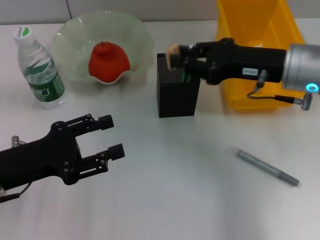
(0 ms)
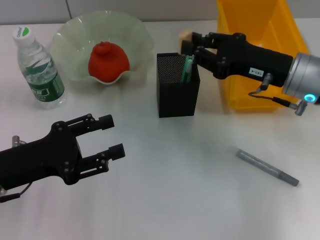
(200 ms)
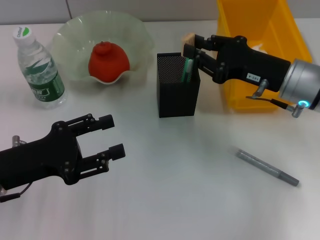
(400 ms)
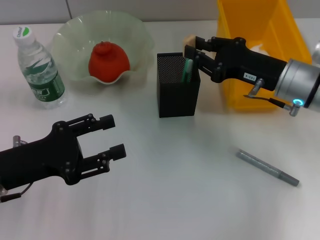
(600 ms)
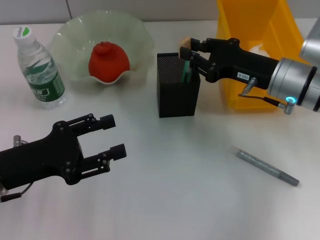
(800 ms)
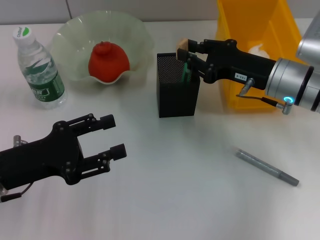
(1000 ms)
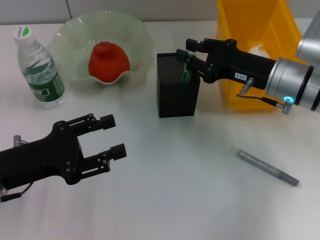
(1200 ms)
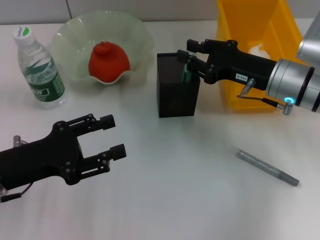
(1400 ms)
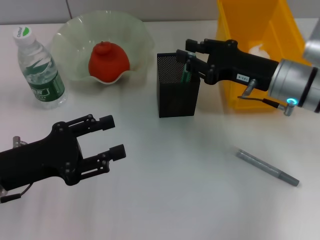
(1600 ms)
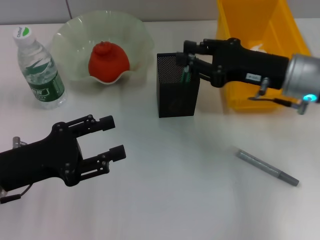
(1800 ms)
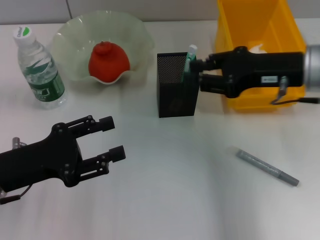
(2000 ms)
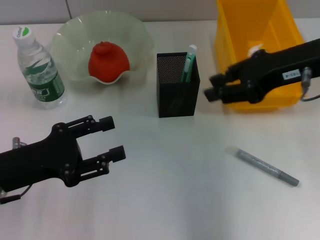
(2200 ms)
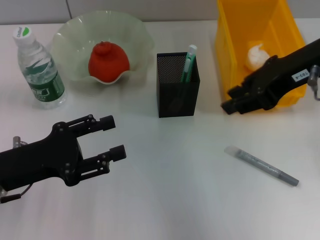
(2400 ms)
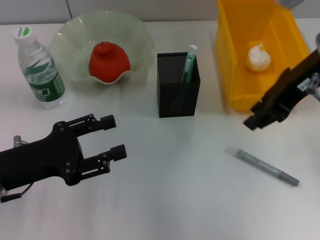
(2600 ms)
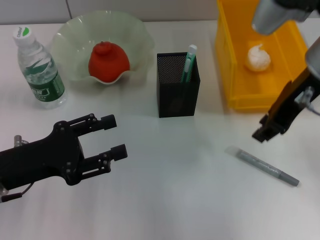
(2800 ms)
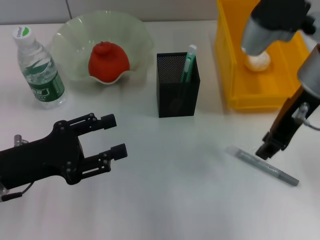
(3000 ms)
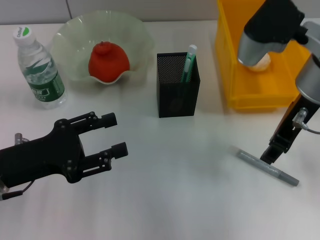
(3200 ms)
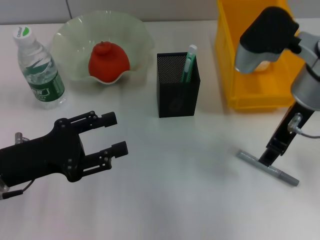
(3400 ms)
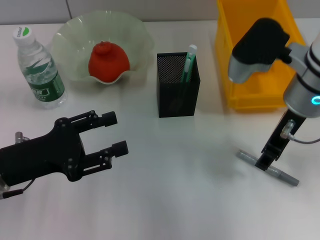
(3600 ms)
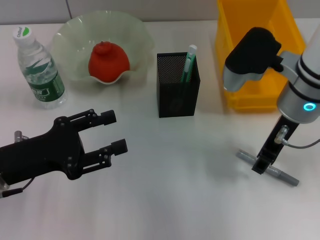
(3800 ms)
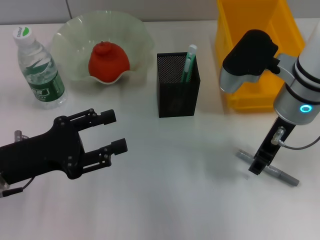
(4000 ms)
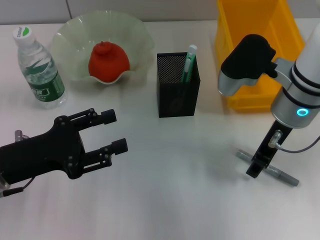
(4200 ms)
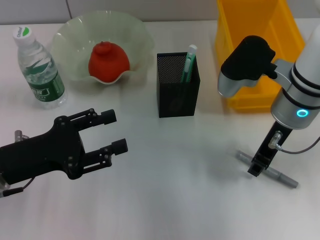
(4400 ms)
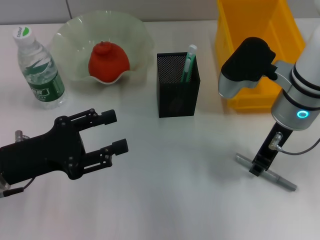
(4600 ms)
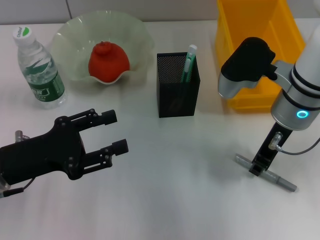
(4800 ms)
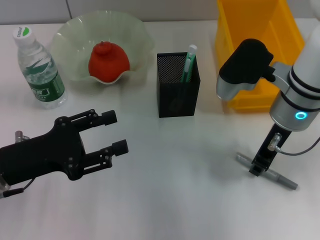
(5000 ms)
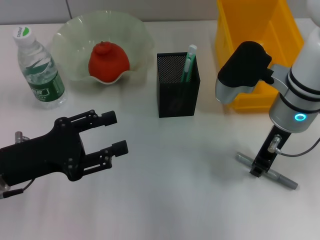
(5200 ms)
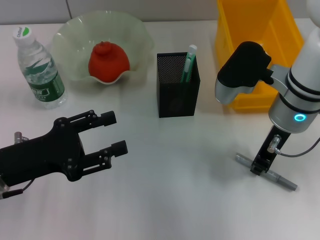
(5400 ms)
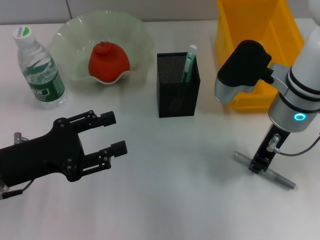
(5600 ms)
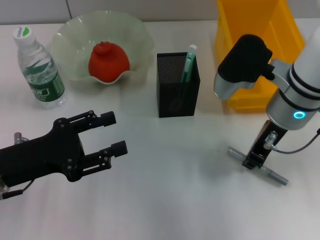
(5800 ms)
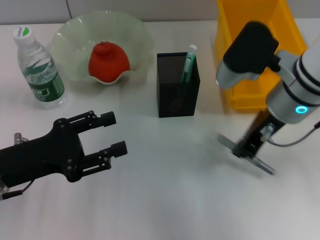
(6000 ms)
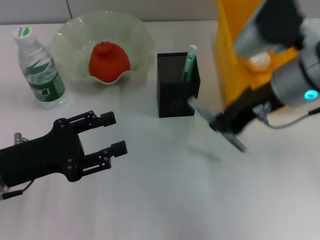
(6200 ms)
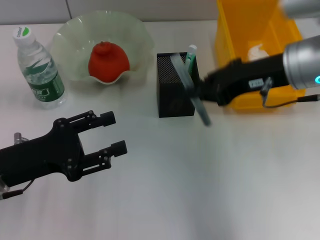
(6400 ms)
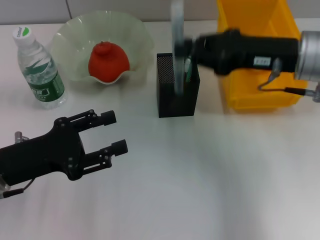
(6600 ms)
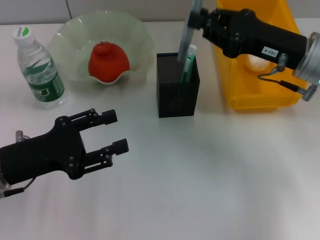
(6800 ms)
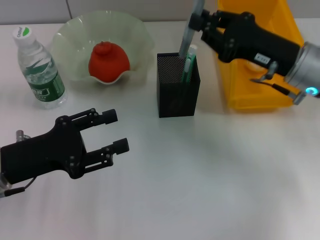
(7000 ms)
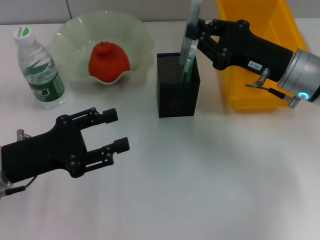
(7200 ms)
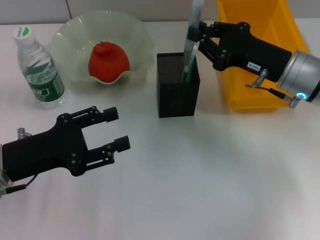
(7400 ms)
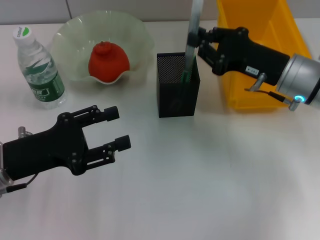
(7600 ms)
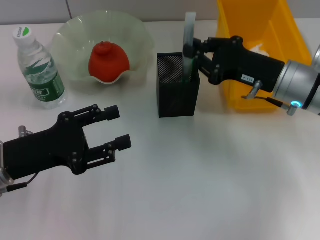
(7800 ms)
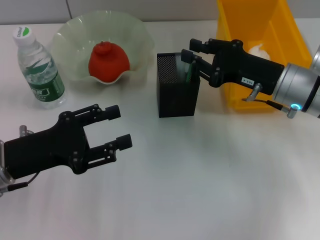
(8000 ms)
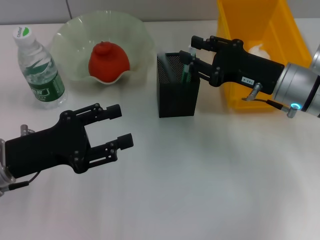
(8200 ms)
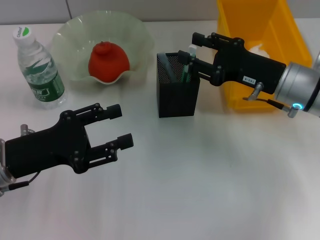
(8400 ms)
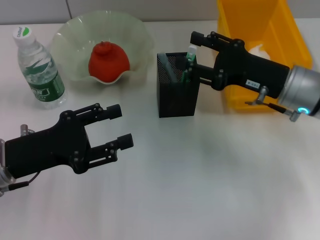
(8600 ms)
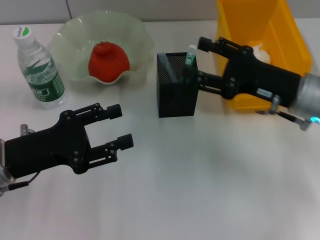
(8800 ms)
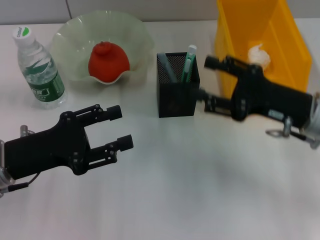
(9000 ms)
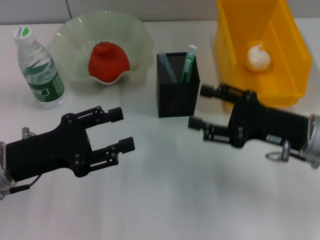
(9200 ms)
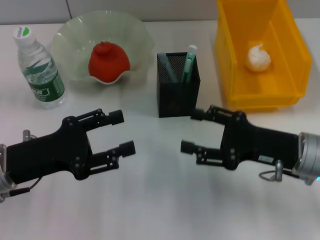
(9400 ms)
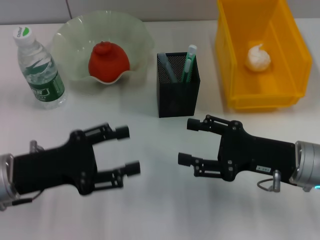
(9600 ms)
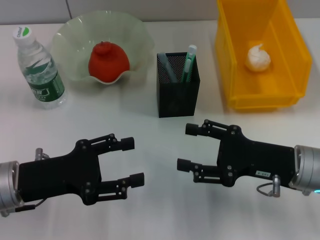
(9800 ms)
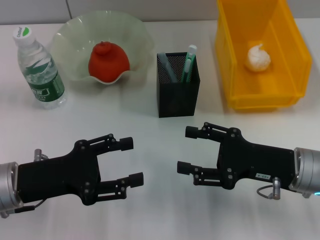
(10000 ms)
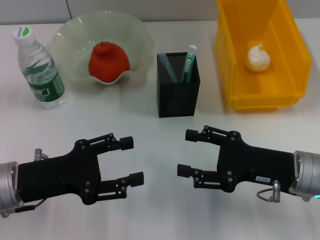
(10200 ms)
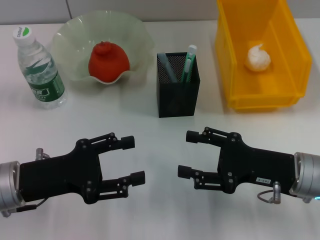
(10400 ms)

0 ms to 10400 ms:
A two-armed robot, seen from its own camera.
Step, 0 ms to 1000 ms: Put the eraser into the pen holder with the right hand.
Step, 1200 ms to 5600 ms: Grab the gray glue with the right hand.
Step, 5800 ms to 8200 ms: Place the gray glue into the pen holder with the right hand.
0 ms to 1400 ms: The right gripper moves downward, about 5 cm.
1400 ms to 3000 ms: The right gripper heads upward, covering approximately 10 cm.
3000 ms to 4400 ms: The right gripper goes approximately 5 cm downward.
4400 ms to 6000 ms: The right gripper closes.
6000 ms to 7400 ms: The right gripper heads downward and to the right, covering approximately 10 cm.
7400 ms to 9000 ms: The right gripper goes approximately 5 cm backward, and opens its fingers.
9000 ms to 10400 ms: The right gripper moves about 5 cm.

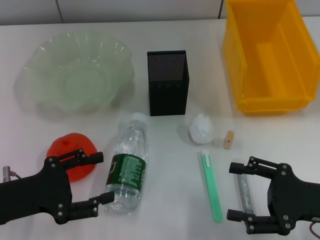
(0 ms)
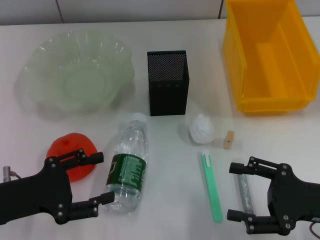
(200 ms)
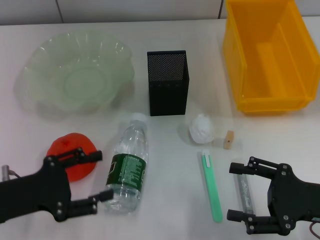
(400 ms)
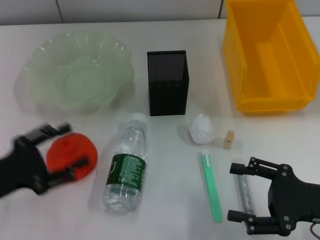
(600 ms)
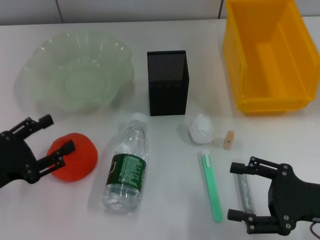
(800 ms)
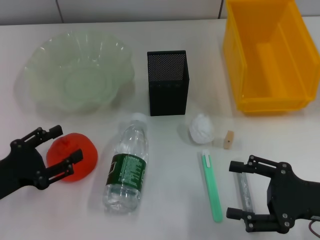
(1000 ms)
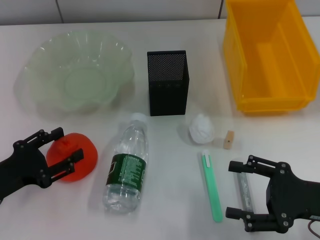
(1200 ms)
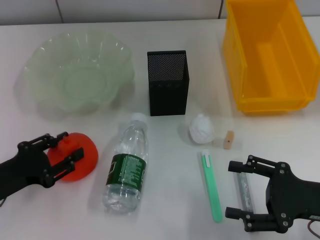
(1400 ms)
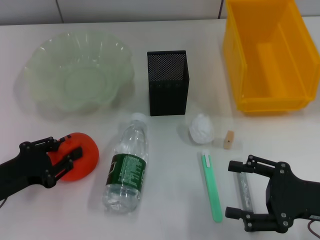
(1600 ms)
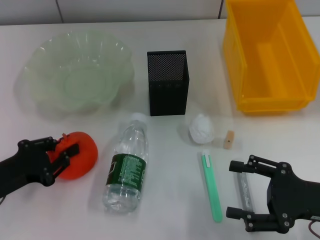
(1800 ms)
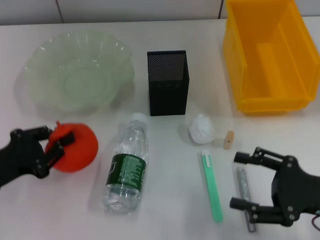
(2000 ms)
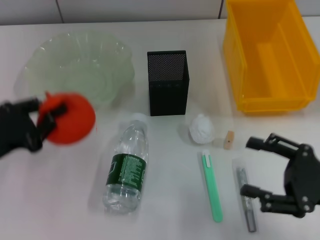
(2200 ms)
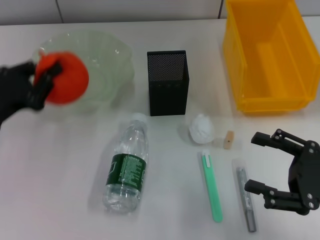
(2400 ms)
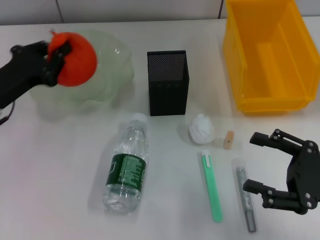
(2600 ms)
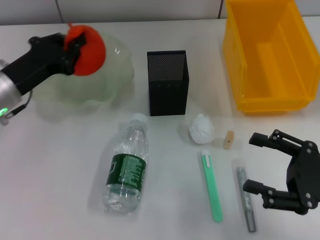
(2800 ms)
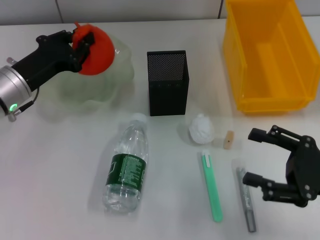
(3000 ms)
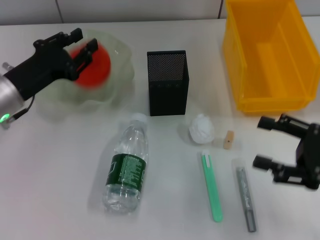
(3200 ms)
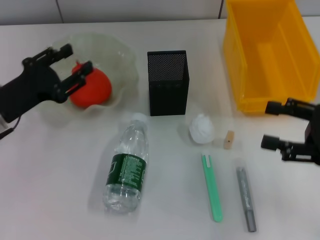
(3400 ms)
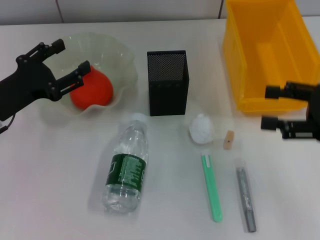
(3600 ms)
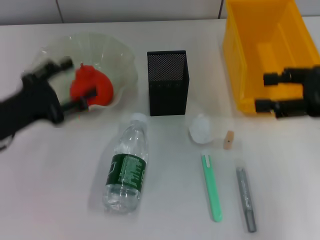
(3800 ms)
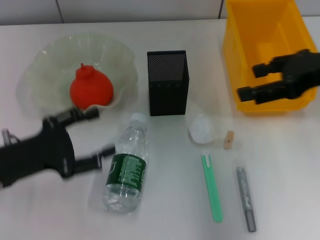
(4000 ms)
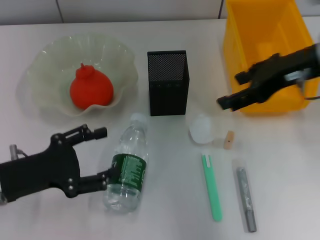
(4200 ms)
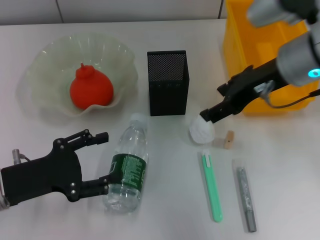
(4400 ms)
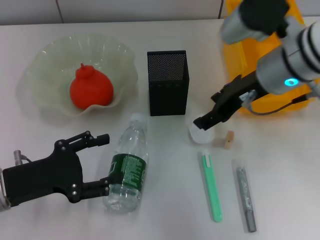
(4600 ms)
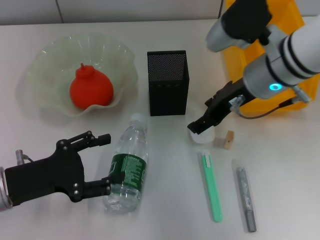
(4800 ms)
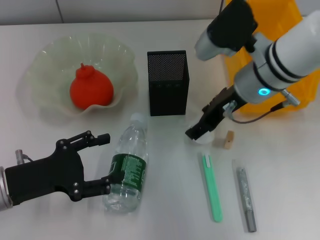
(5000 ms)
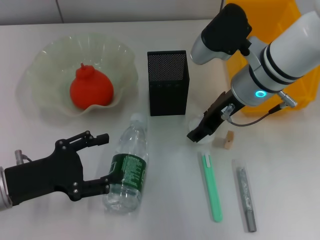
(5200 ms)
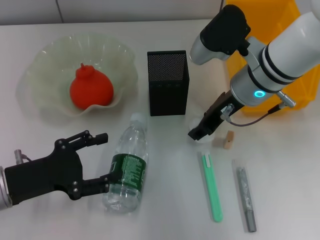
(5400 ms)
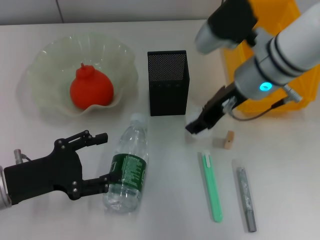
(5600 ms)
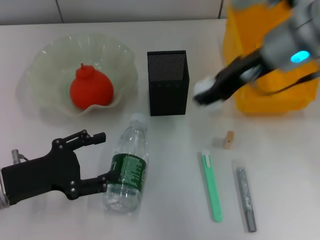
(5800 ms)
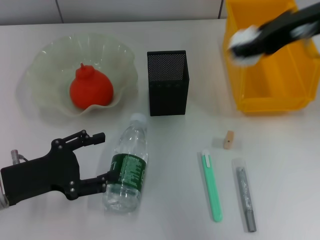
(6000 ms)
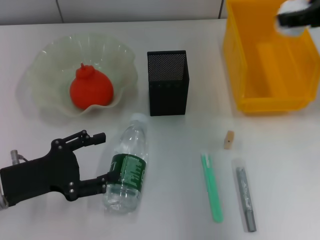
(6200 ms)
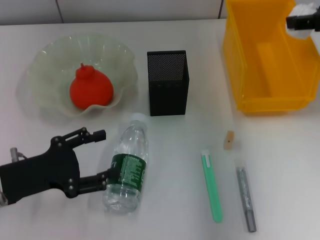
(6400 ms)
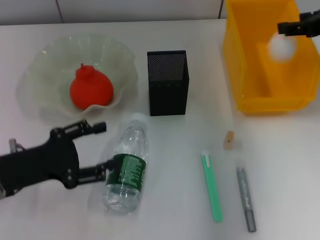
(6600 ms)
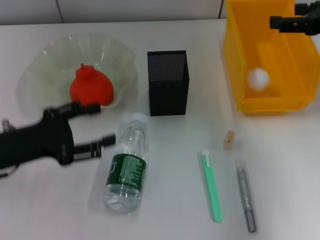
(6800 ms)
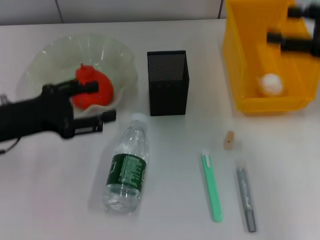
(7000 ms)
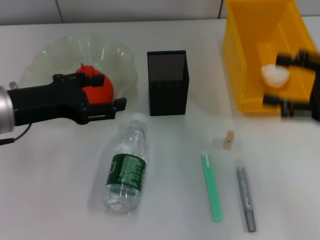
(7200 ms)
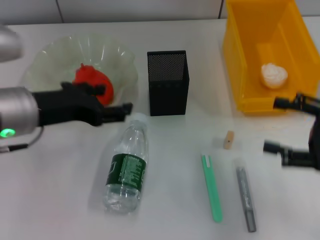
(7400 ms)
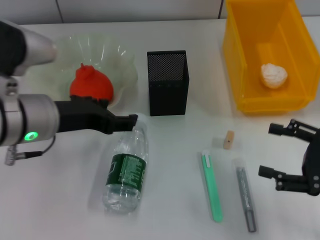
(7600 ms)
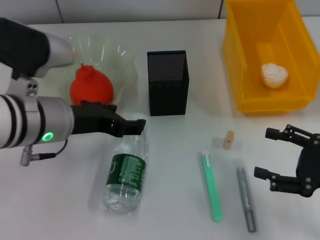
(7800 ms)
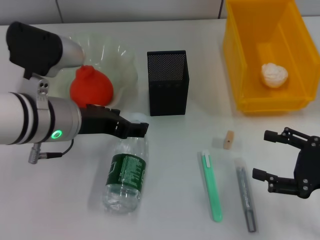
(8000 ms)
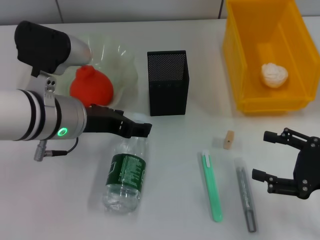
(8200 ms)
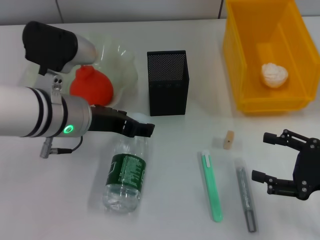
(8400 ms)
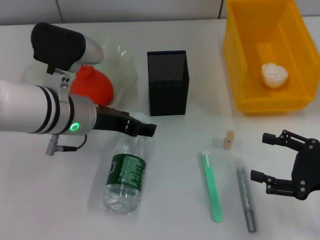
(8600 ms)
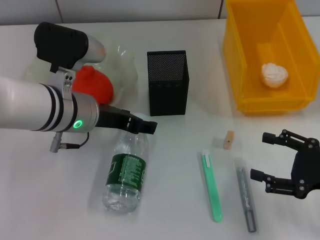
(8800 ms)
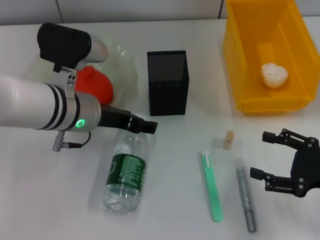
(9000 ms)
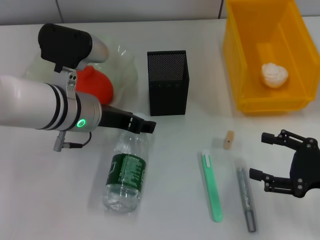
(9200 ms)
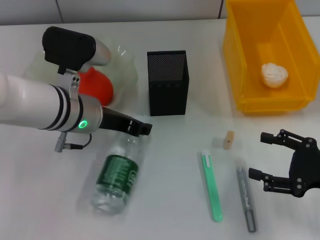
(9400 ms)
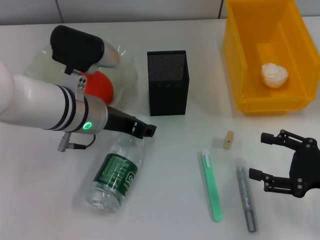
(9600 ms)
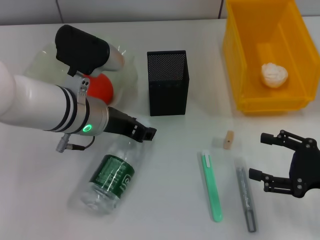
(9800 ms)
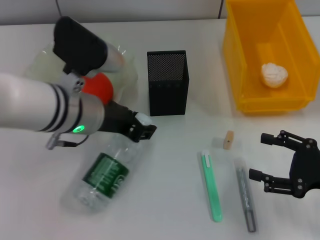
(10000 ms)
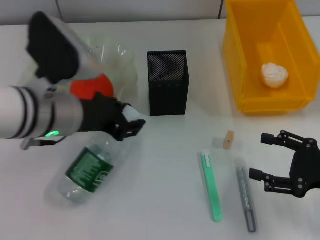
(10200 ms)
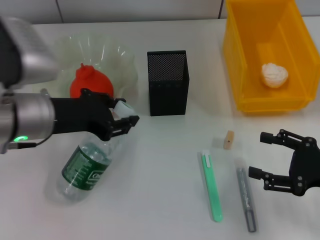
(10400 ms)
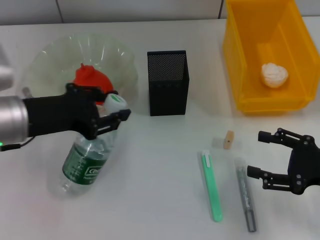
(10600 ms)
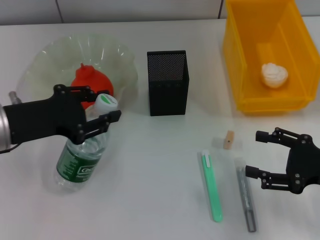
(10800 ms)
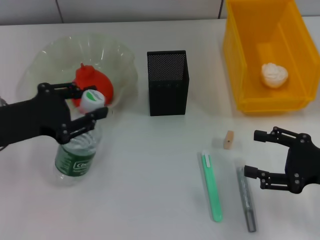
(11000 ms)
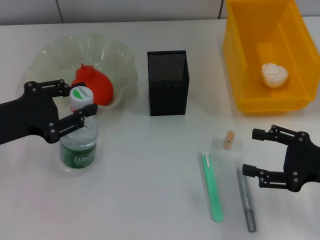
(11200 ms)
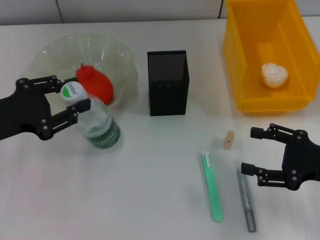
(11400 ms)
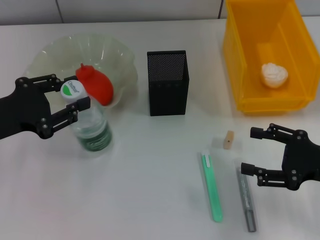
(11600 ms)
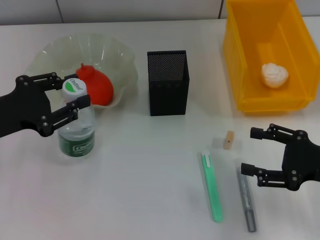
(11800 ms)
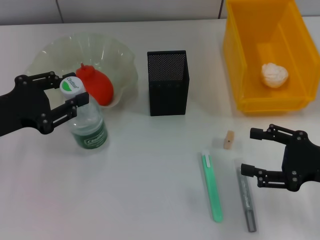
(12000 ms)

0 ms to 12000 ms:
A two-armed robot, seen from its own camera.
Step, 0 ms to 1600 ms: Grab the orange with the left hand.
Step, 2000 ms to 3200 ms: Place the orange into the fruit bowl with the left hand.
Step, 3400 ms to 5400 ms: Grab the paper ball with the right hand.
Step, 5600 ms to 6600 ms: Place the paper ball into the trash can with the right hand.
Step, 6800 ms to 9600 ms: Grab the water bottle with the left hand.
1600 ms to 3000 ms: The left gripper heads forward, covering approximately 15 cm, and closes its fingers.
3000 ms to 4400 ms: The left gripper goes some 15 cm backward, and opens up; the right gripper shifts about 25 cm forward, upward and to the left.
4400 ms to 6000 ms: The right gripper is displaced upward by approximately 5 cm, and closes its fingers.
6000 ms to 7600 ms: The right gripper goes some 25 cm downward, backward and to the right, and opens, while the left gripper travels upward, to the right and forward by about 15 cm.
7600 ms to 9000 ms: The left gripper moves about 10 cm.
9000 ms to 10400 ms: The left gripper shifts approximately 5 cm to the left, and closes up.
10400 ms to 12000 ms: The left gripper moves to the left, roughly 10 cm.
